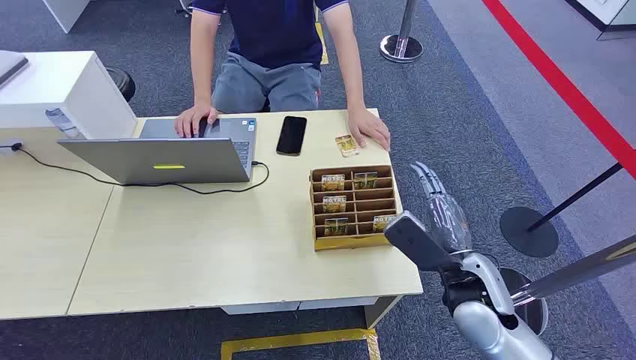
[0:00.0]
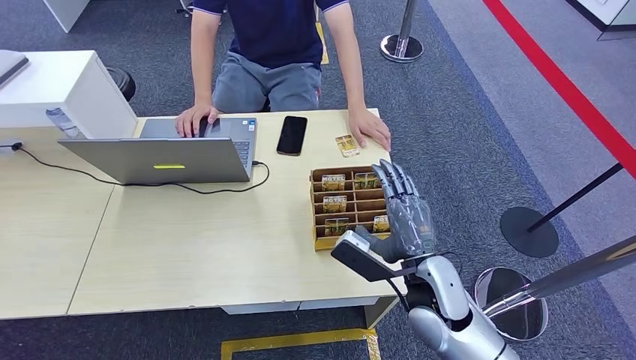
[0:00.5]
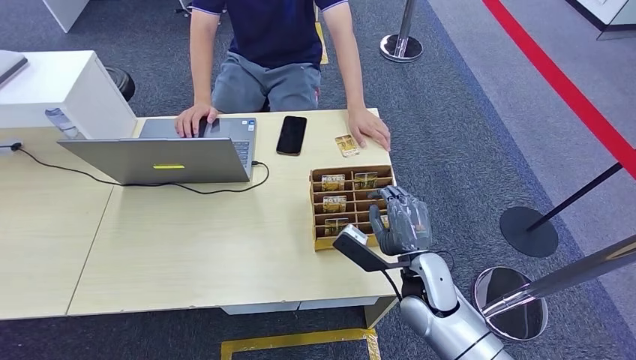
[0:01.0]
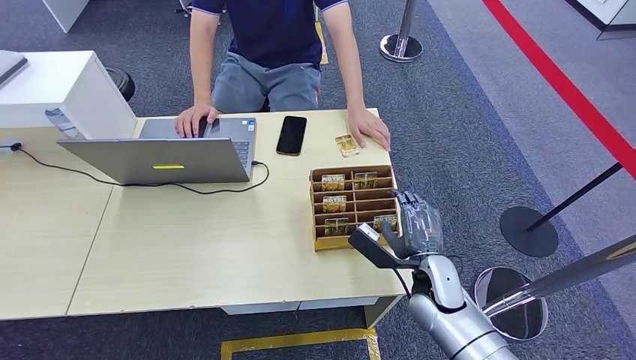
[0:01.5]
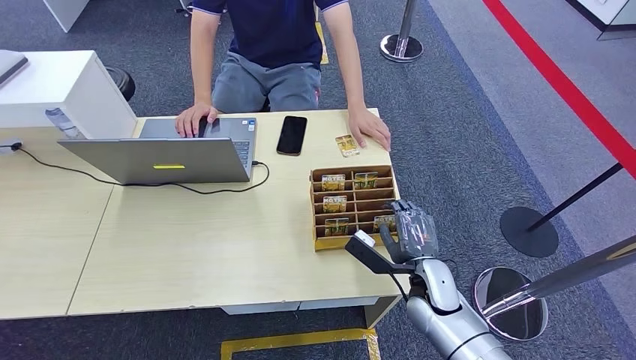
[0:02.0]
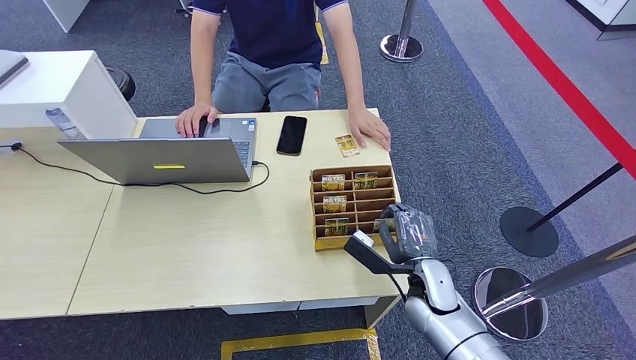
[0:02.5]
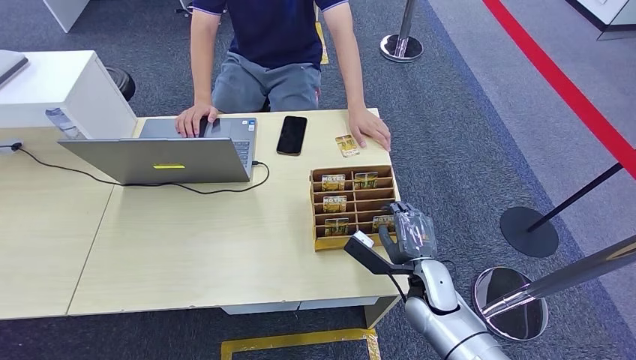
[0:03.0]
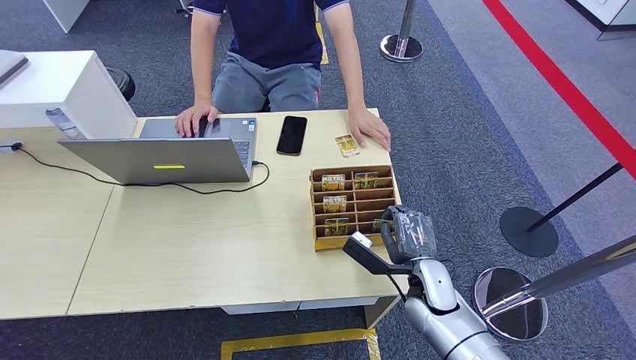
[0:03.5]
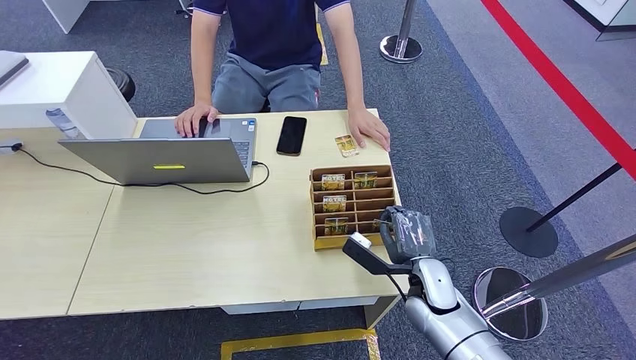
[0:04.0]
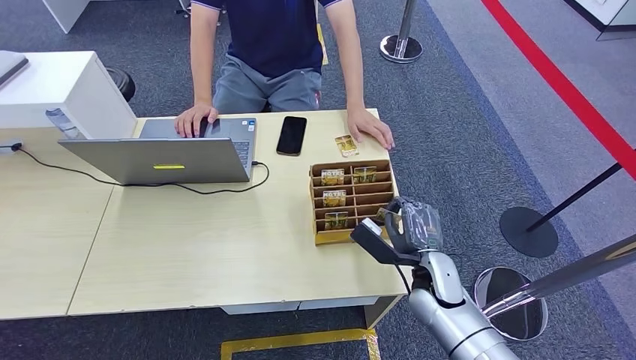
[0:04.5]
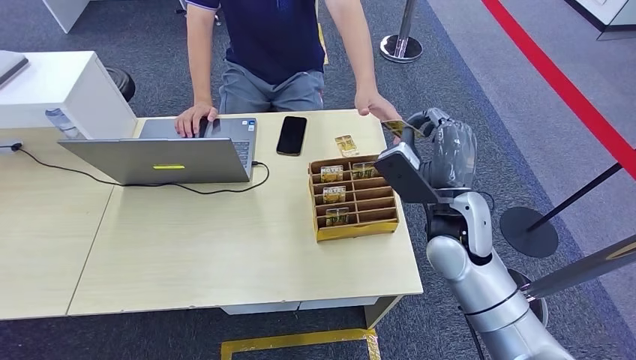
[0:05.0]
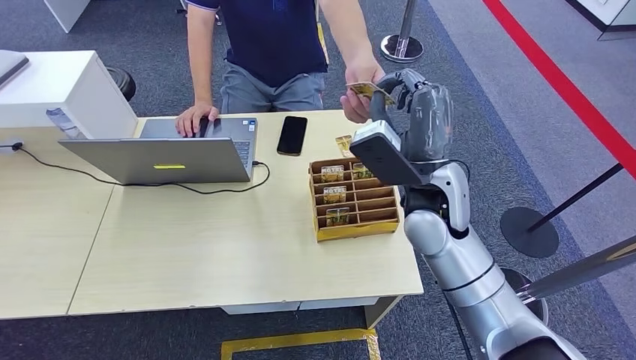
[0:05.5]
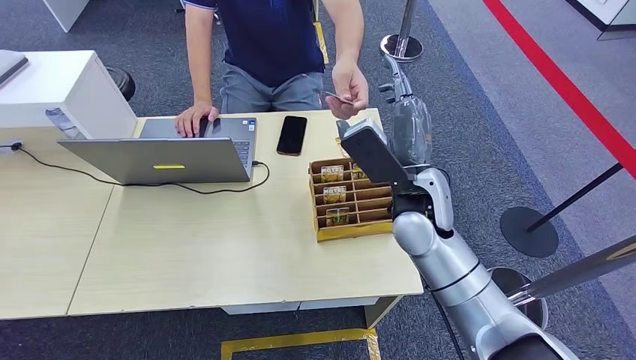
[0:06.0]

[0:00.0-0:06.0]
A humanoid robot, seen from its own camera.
Step, 0:00.0 to 0:04.5: Pick up the room card from the card holder.
Step, 0:05.0 to 0:06.0: Hand the room card to the target.
0:02.0 to 0:04.0: The hands make only small movements.
0:04.0 to 0:06.0: The right hand goes about 20 cm upward and forward.
